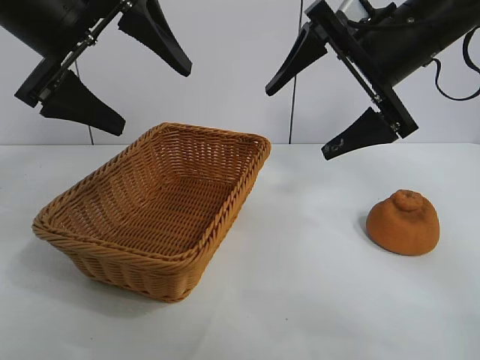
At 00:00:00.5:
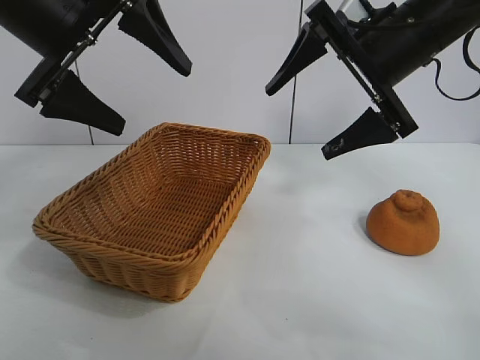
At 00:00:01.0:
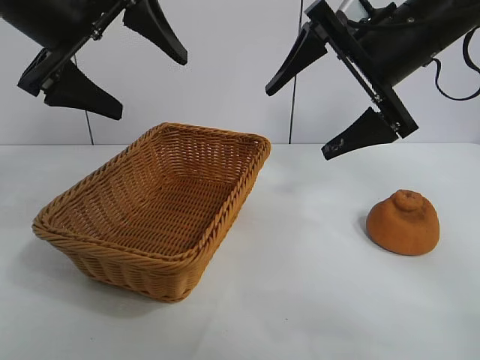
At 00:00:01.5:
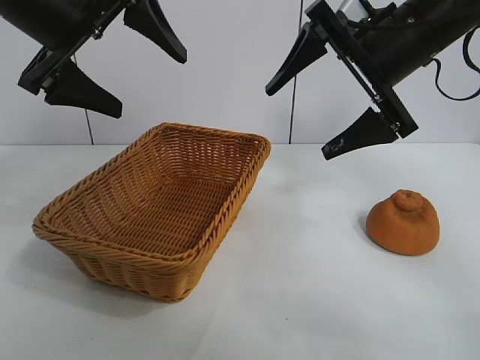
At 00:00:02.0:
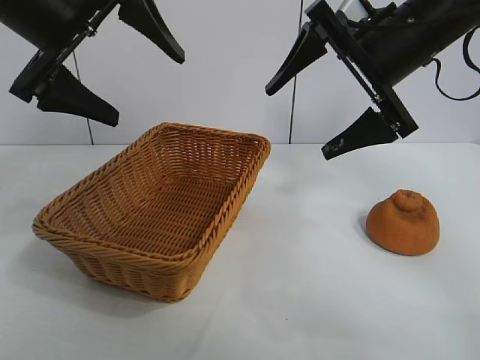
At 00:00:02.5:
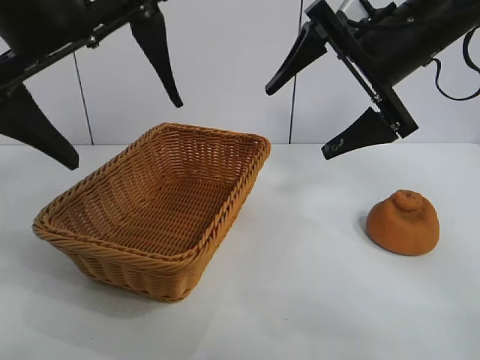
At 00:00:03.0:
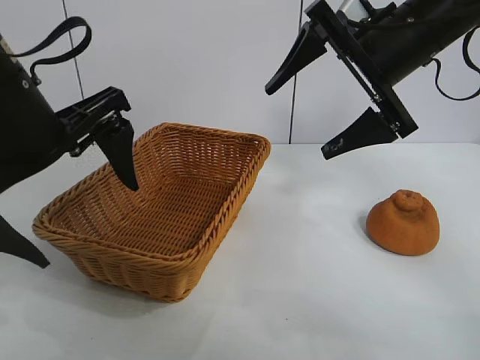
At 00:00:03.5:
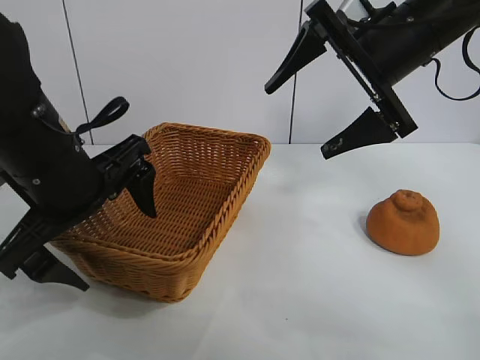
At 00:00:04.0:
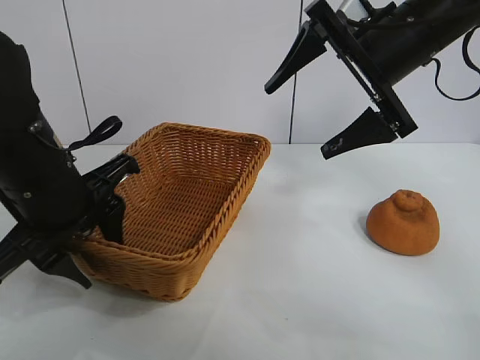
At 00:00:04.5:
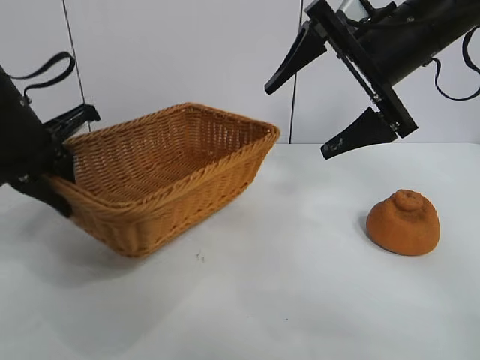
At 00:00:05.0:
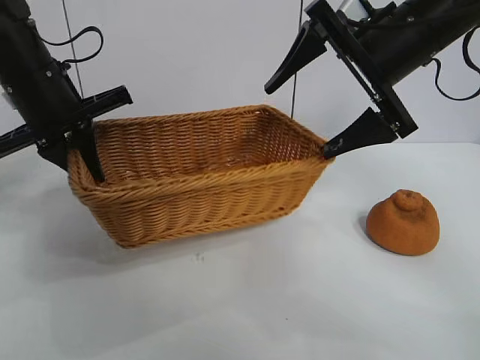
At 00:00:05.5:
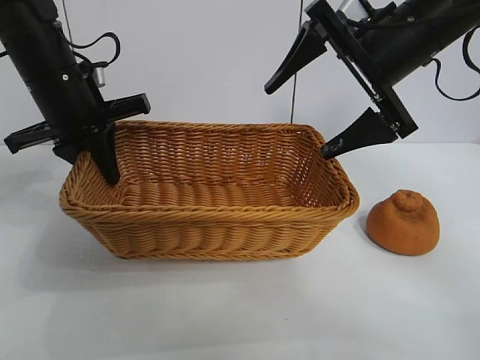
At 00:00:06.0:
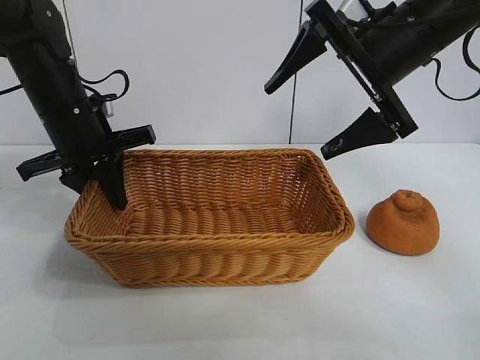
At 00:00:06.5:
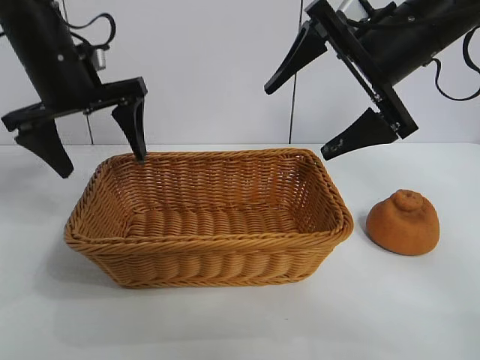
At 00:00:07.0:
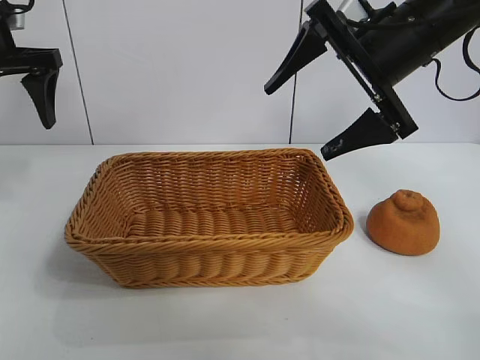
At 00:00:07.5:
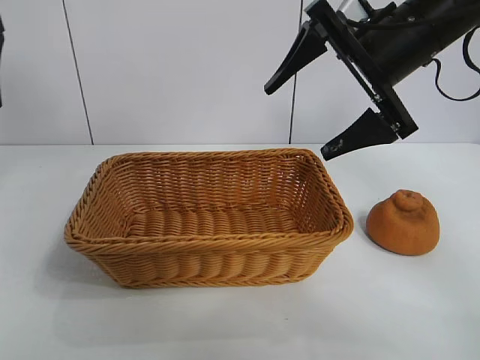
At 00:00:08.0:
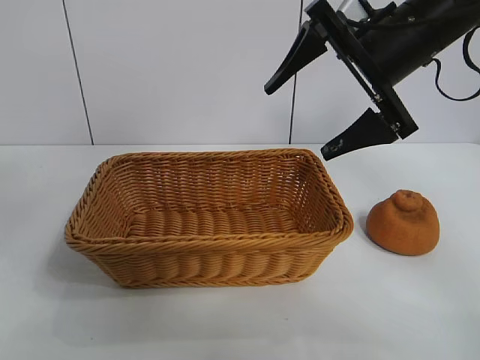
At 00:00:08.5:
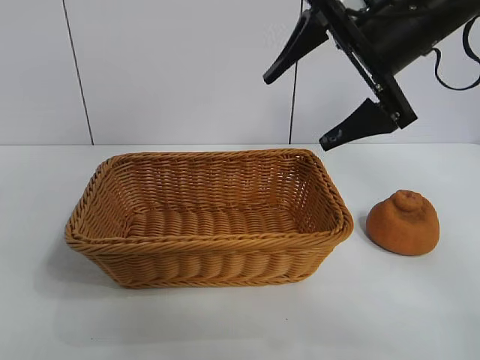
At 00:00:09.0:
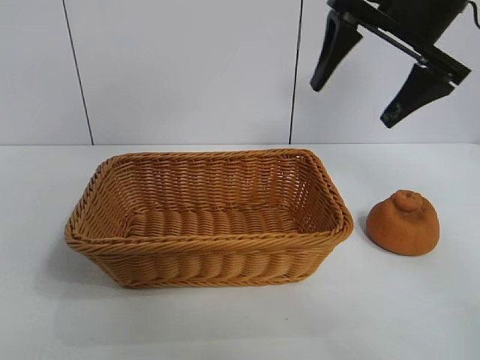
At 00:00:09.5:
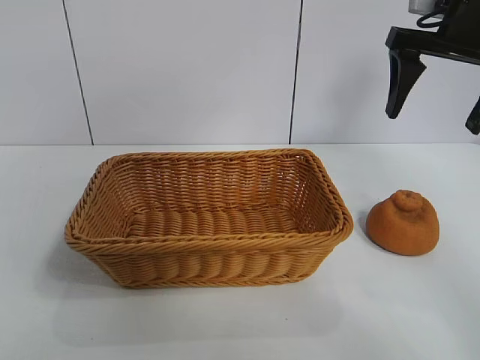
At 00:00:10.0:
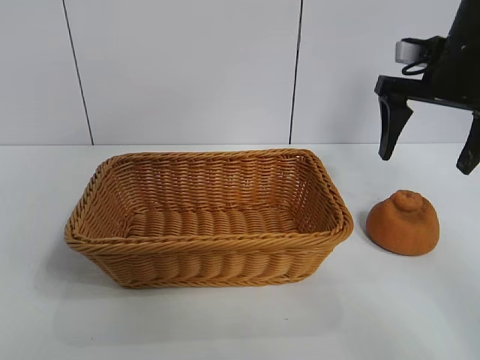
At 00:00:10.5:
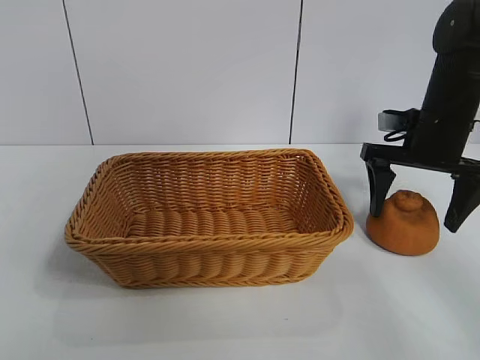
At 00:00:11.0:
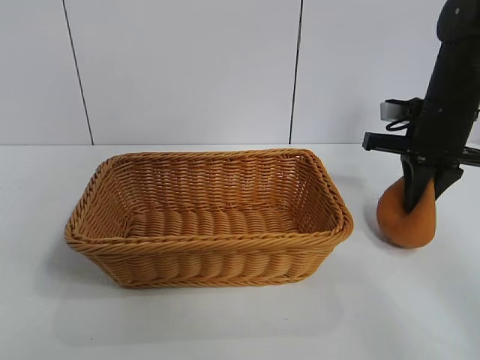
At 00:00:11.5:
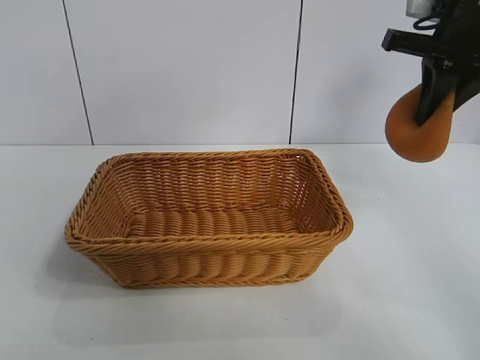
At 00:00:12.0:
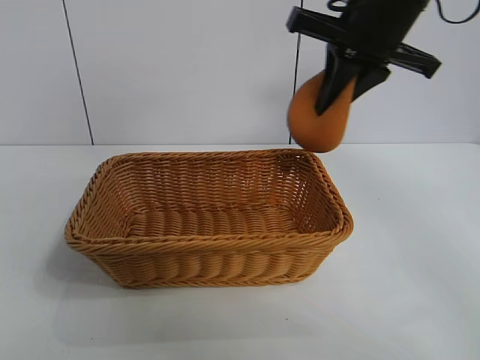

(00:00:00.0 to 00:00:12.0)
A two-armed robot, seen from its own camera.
Task of the whole recording: pick up the orange and put it into the basket.
Step, 00:00:02.0 - 00:00:04.0: Grasp the basket with left gripper.
Step, 00:00:04.5 - 00:00:06.0: Place the basket in the center of view with left gripper.
Step, 00:00:06.5 - 00:00:11.0: Grasp the orange with right gripper.

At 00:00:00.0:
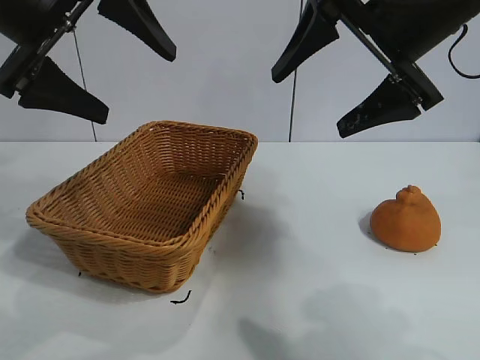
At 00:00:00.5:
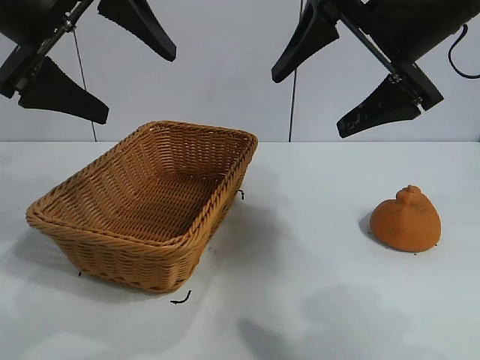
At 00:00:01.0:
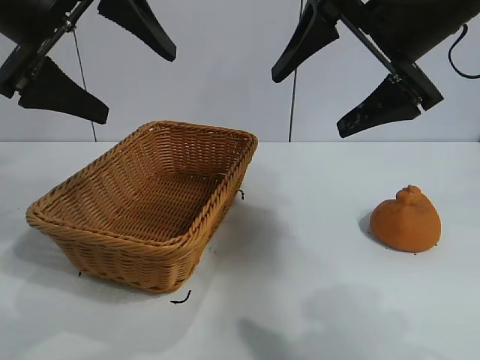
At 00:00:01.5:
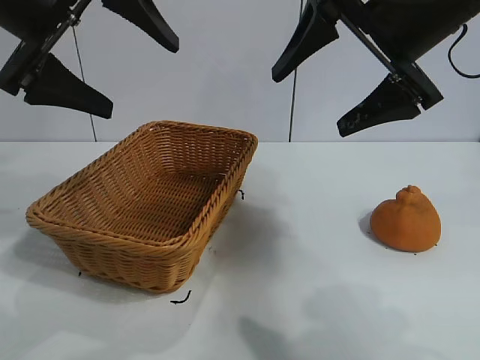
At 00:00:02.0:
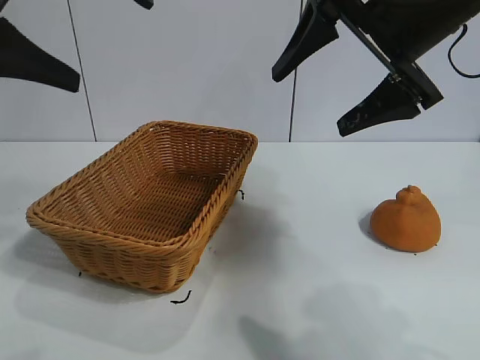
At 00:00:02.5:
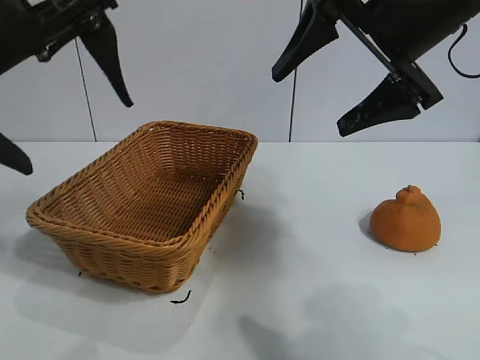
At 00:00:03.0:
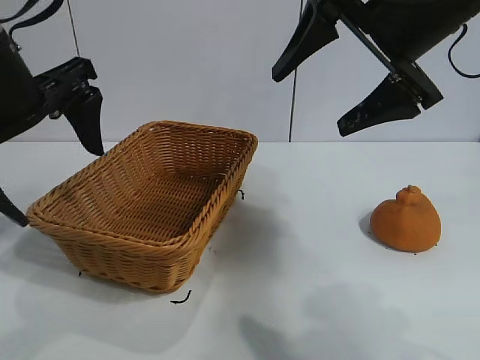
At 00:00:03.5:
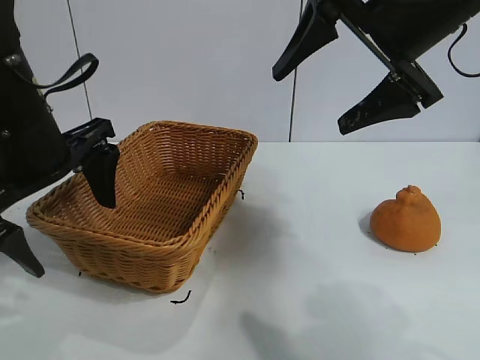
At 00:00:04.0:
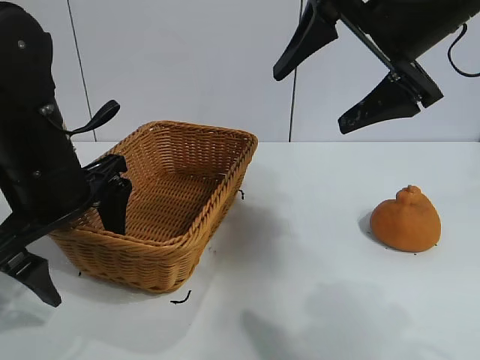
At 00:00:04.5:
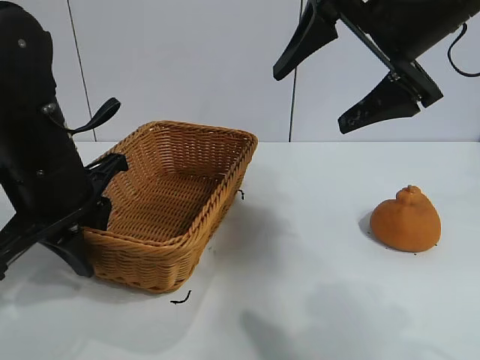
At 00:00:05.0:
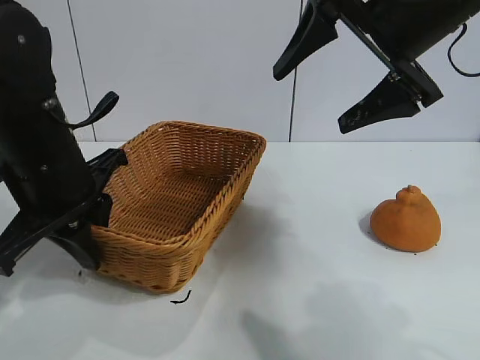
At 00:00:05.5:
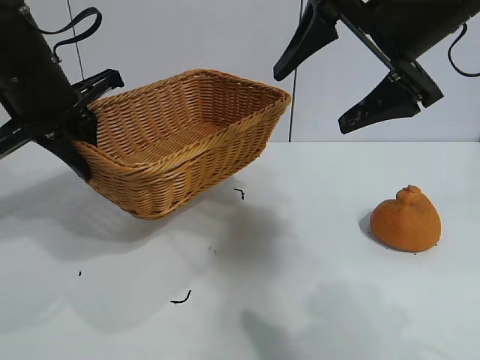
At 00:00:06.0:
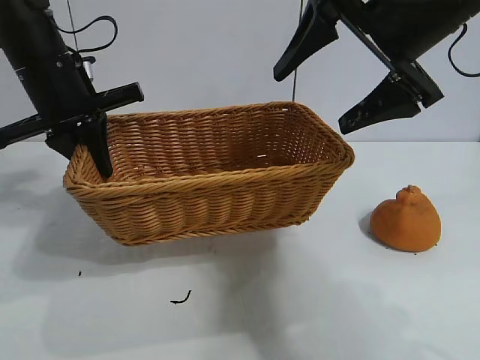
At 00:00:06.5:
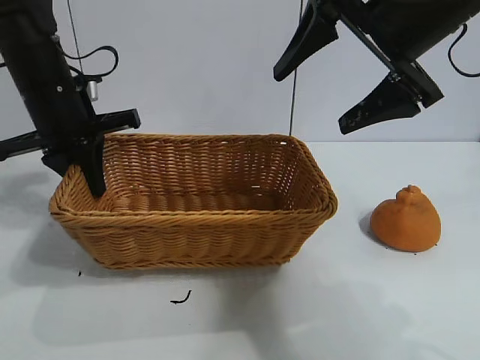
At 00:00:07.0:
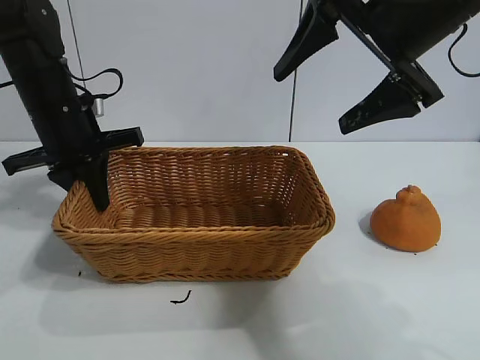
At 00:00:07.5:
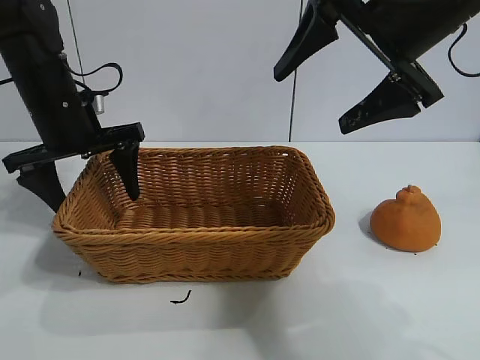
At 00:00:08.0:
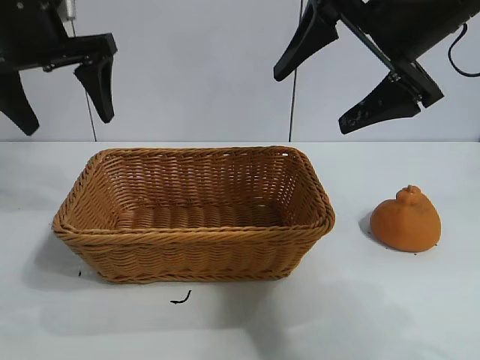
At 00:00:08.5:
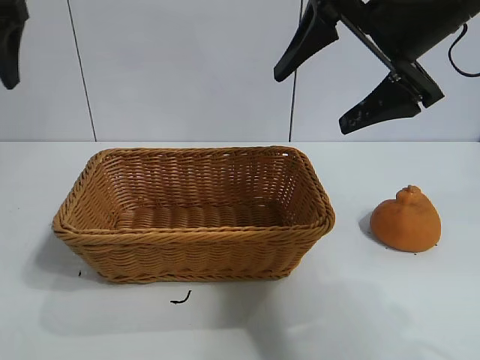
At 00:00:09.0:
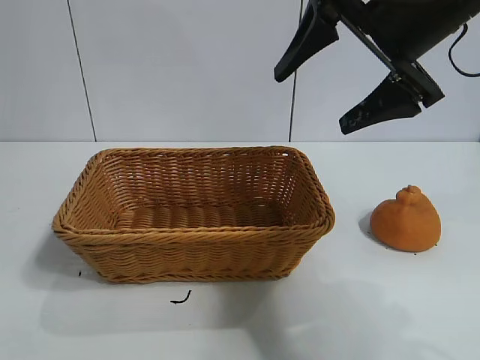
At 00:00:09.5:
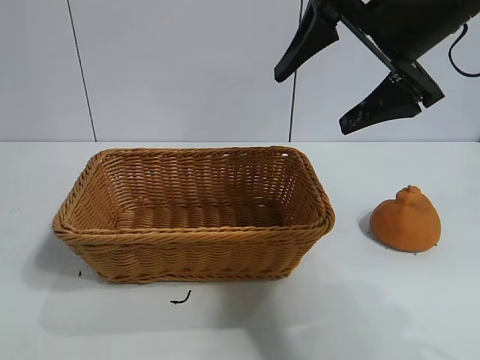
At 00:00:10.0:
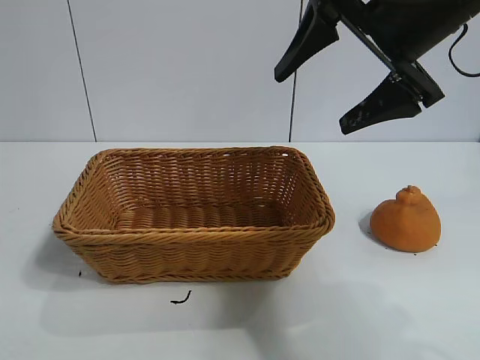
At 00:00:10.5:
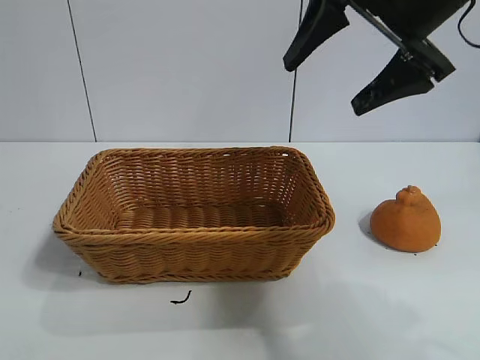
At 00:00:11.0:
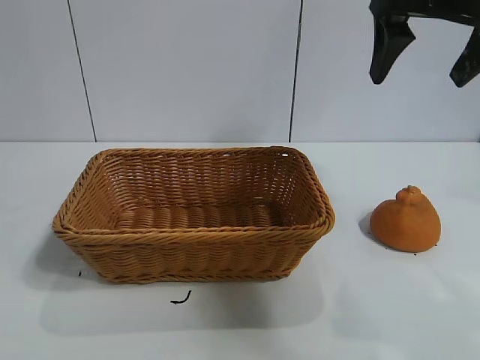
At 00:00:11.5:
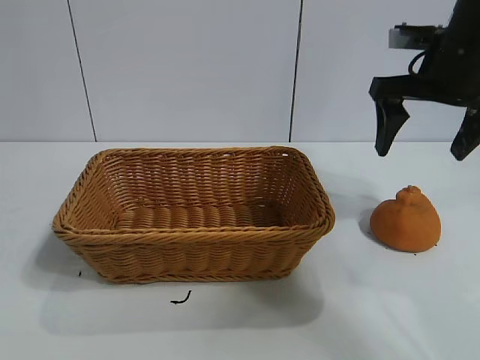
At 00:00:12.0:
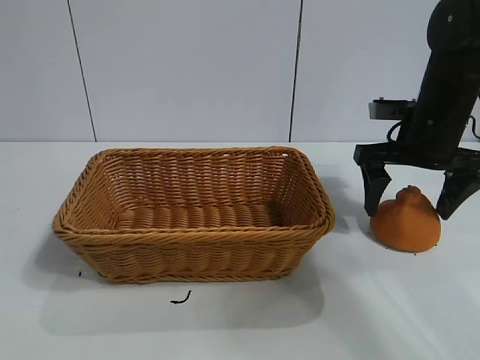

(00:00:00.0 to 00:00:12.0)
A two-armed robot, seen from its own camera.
Task of the whole recording: pick up the orange and put it into the basket.
Step, 00:00:01.5 - 00:00:04.5: Grasp the basket with left gripper.
Step, 00:00:05.0 - 00:00:07.5: Place the basket in the center of view with left gripper.

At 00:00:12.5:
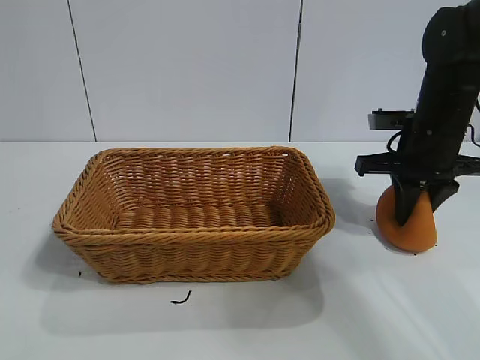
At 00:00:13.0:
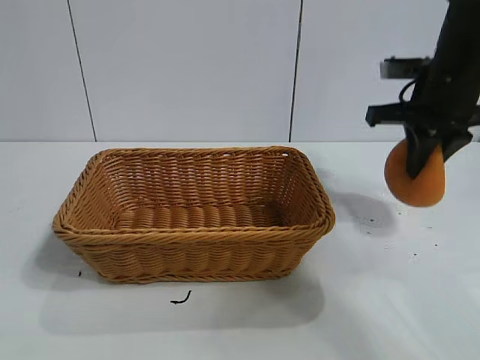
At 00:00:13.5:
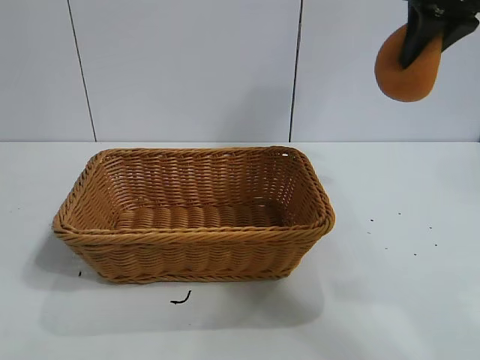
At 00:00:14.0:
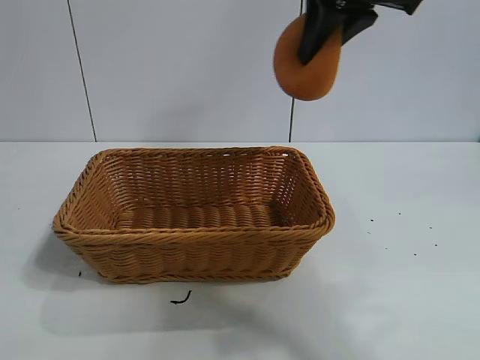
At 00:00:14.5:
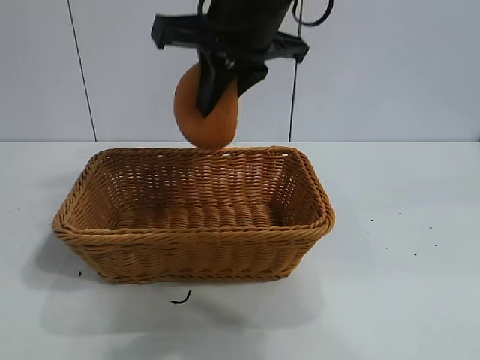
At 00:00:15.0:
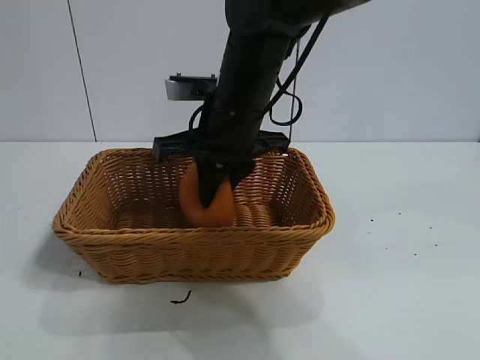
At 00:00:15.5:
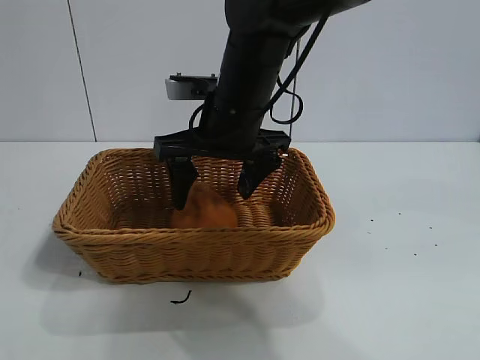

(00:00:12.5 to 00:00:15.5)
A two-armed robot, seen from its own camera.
Task of the whole recording: pick up the orange and put it into the basket.
Step, 00:00:13.0 - 00:00:15.5: Place the orange in the basket with right gripper.
